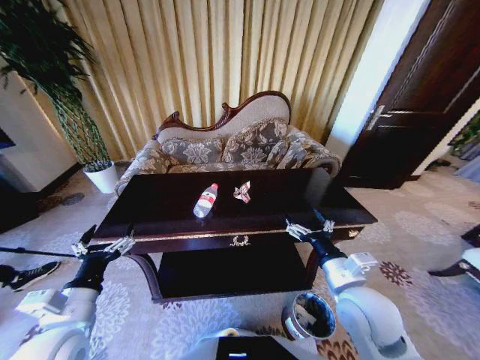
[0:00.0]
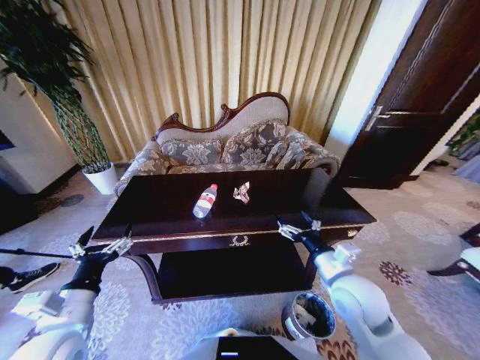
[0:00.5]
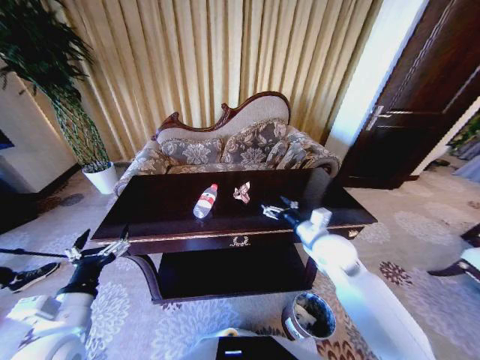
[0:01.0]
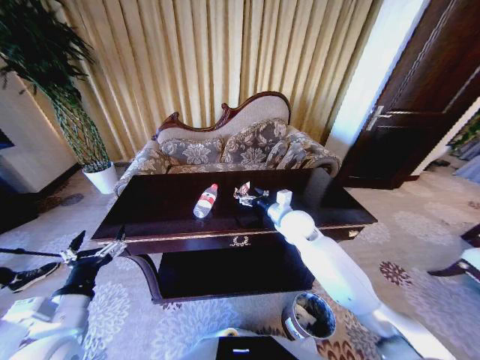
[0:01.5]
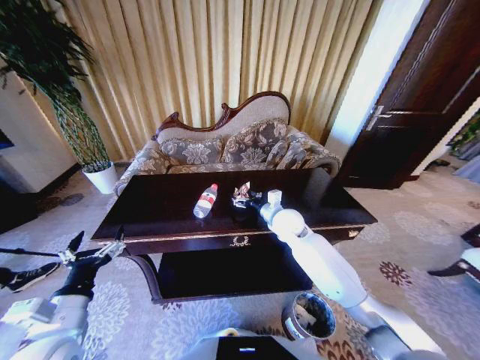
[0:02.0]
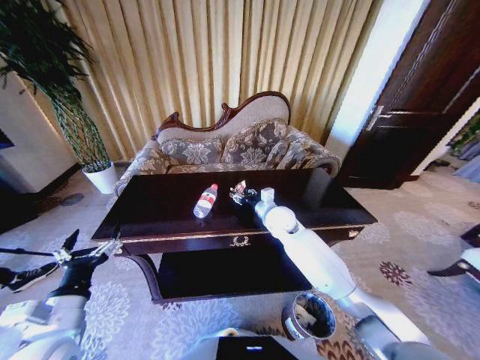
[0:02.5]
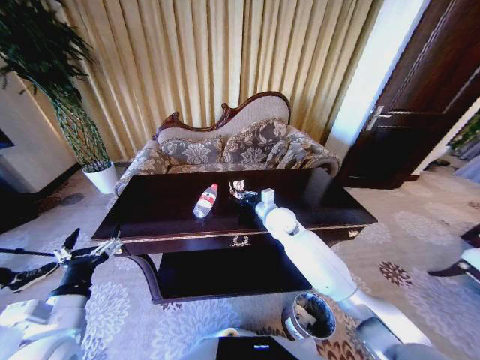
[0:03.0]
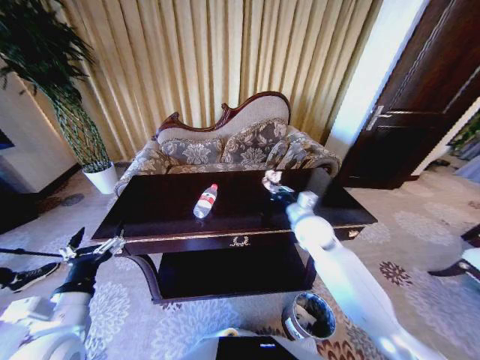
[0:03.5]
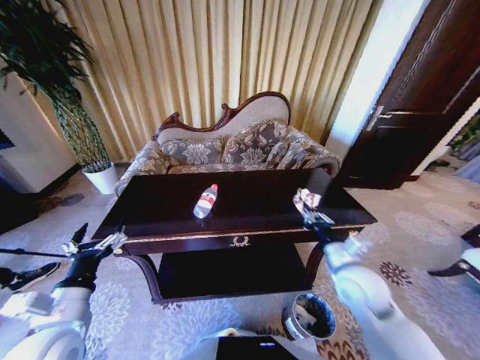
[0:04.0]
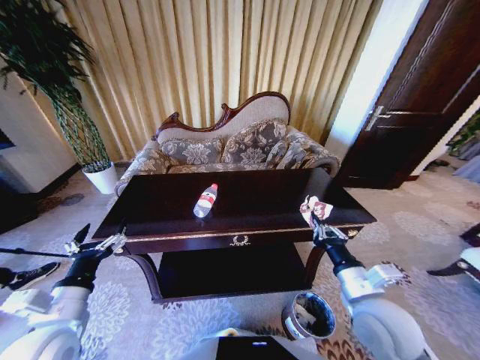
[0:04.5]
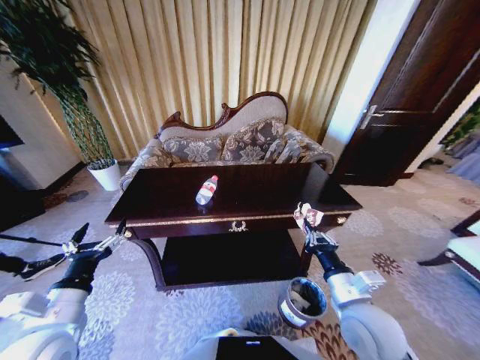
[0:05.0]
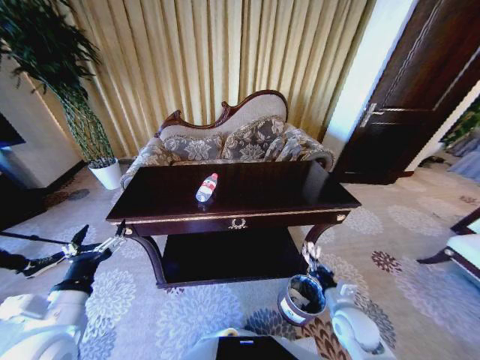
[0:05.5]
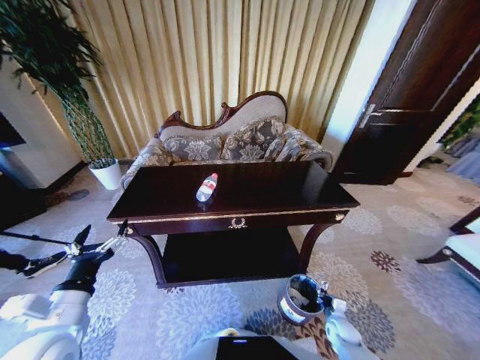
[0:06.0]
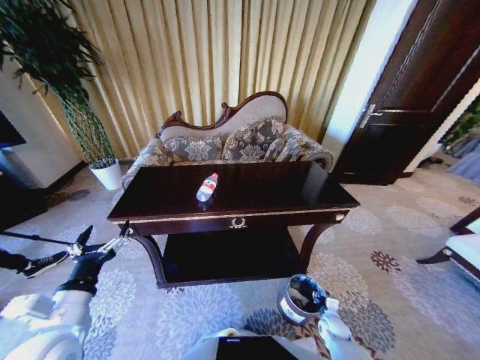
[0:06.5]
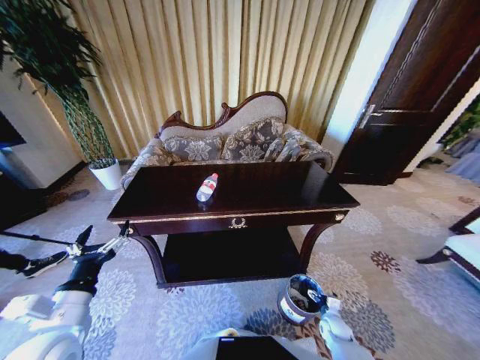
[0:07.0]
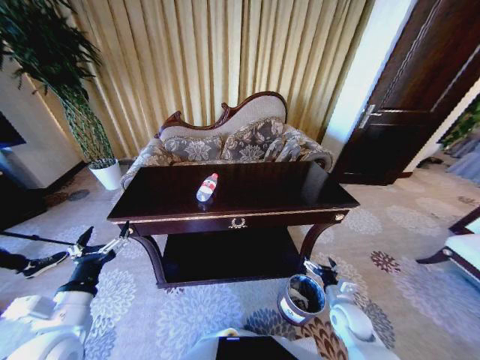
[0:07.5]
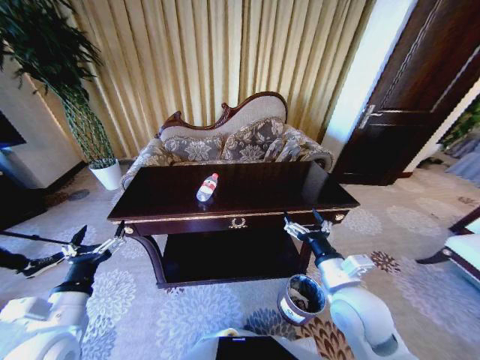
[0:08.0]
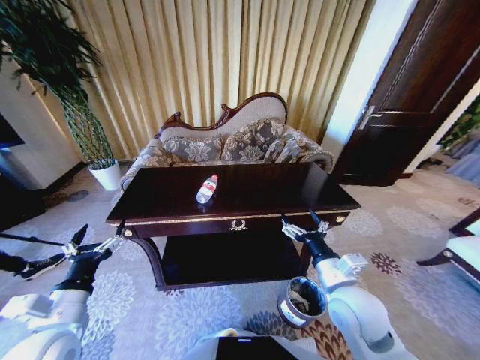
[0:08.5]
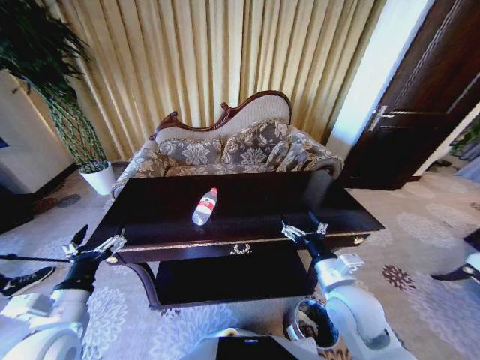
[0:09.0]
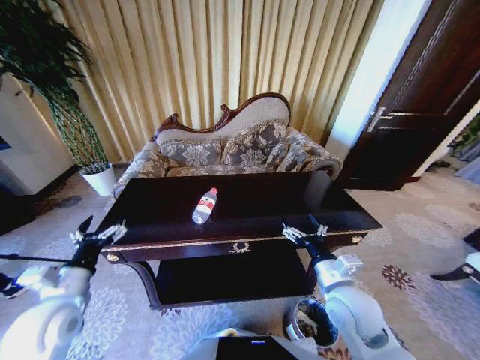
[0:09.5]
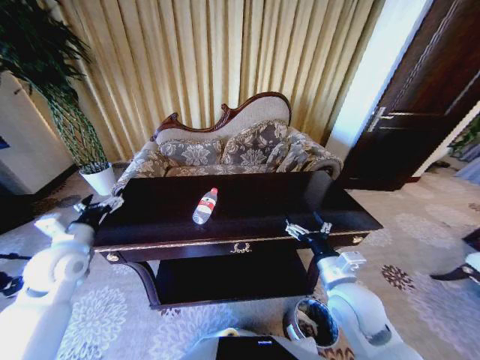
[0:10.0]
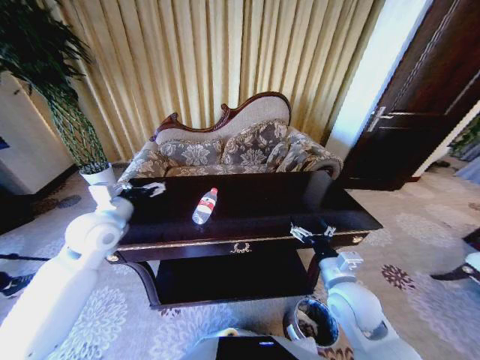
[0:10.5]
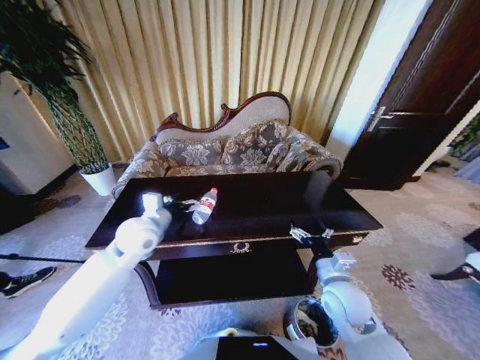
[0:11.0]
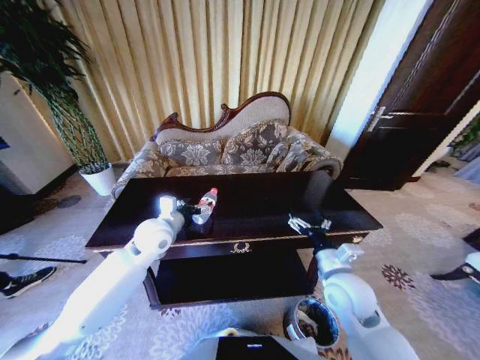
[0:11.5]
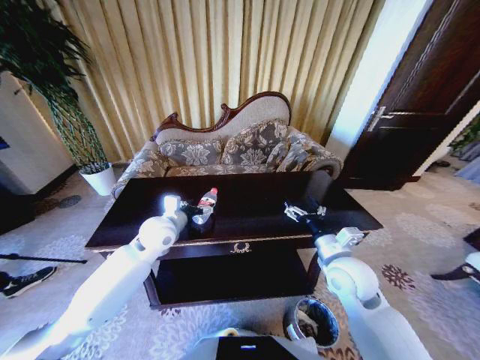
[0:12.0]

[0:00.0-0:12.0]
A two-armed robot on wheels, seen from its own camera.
Task of the whole recording: Move to the front of the table and place the trash on the table into the trash bin.
0:00.0 to 0:02.0: The right gripper heads forward, covering roughly 25 cm.
0:02.0 to 0:04.0: The right gripper is displaced backward and to the right by some 25 cm, and closes up.
0:04.0 to 0:06.0: The right gripper is displaced downward by approximately 35 cm.
0:06.0 to 0:08.0: The right gripper moves upward and to the left, about 40 cm, and opens up.
0:08.0 to 0:10.0: The left gripper heads forward and to the left, covering approximately 15 cm.
0:10.0 to 0:12.0: The right gripper heads forward, covering roughly 5 cm. The left gripper travels to the right and forward by approximately 20 cm.

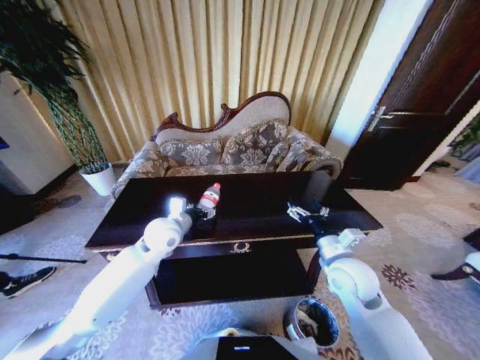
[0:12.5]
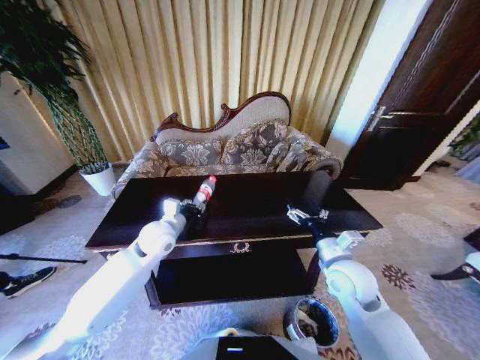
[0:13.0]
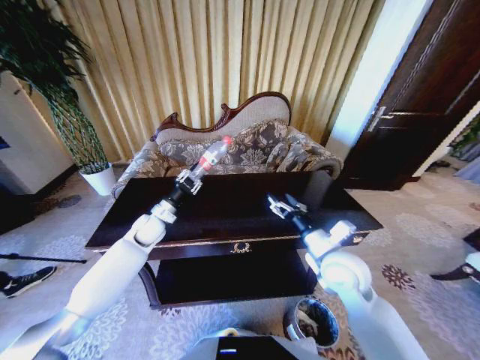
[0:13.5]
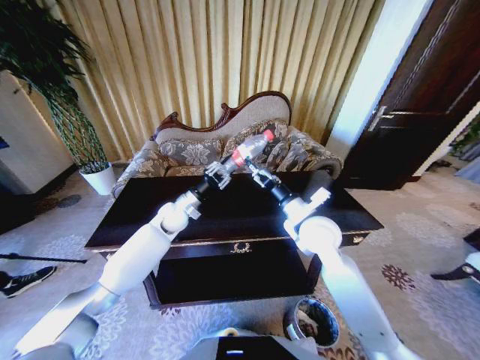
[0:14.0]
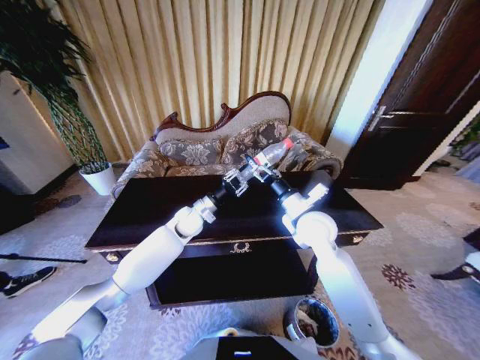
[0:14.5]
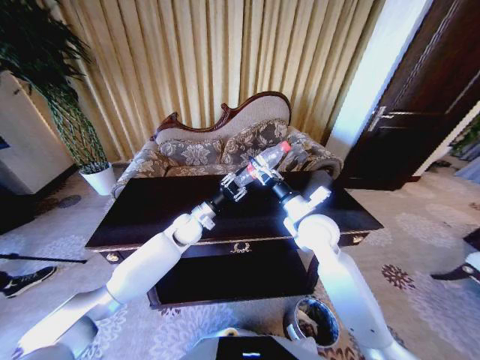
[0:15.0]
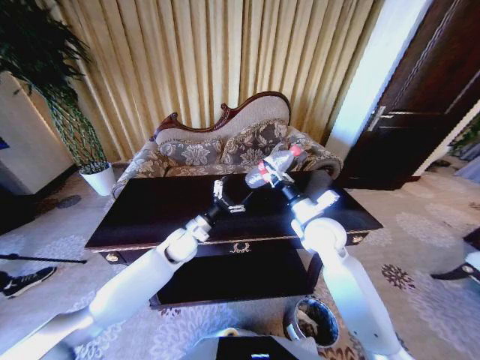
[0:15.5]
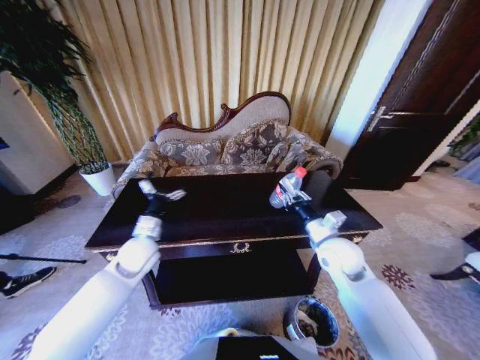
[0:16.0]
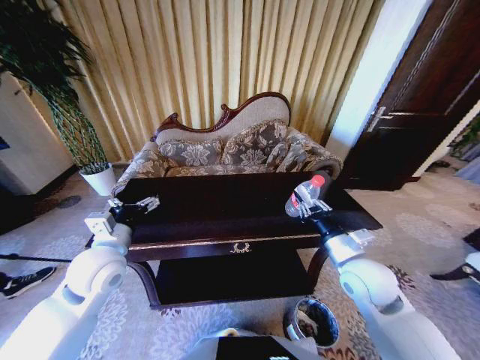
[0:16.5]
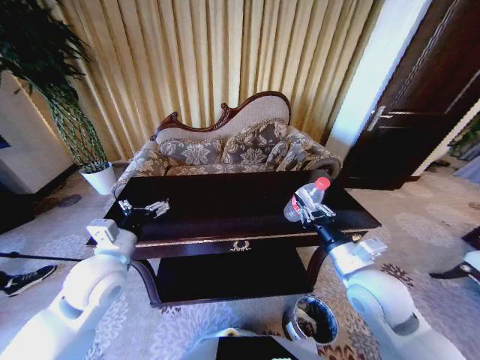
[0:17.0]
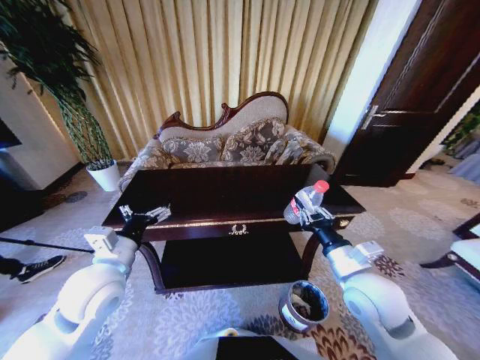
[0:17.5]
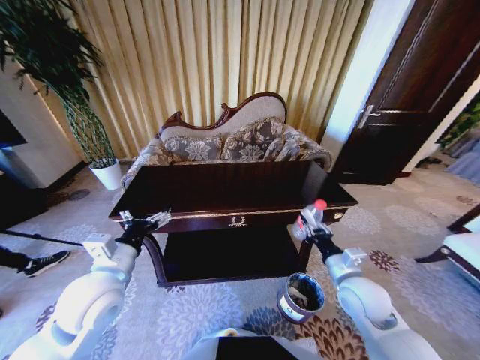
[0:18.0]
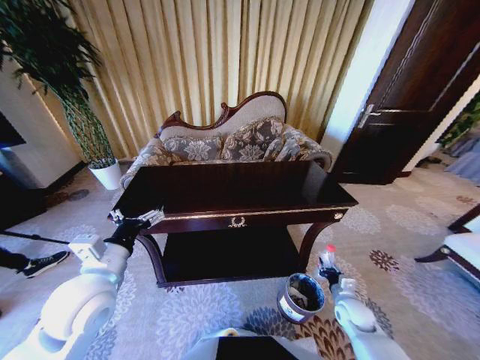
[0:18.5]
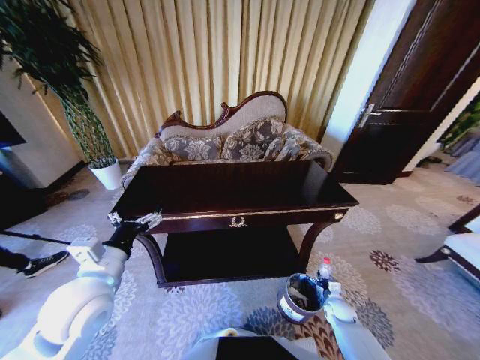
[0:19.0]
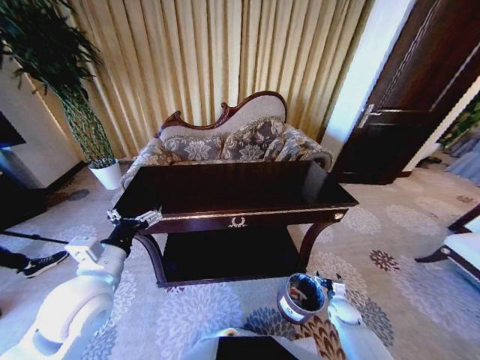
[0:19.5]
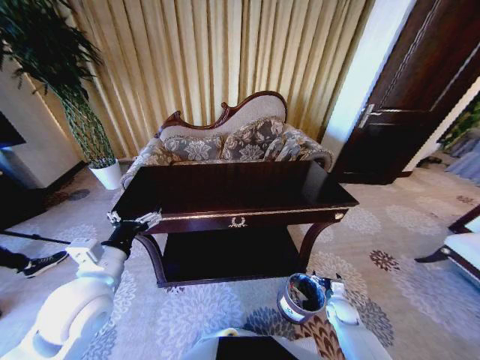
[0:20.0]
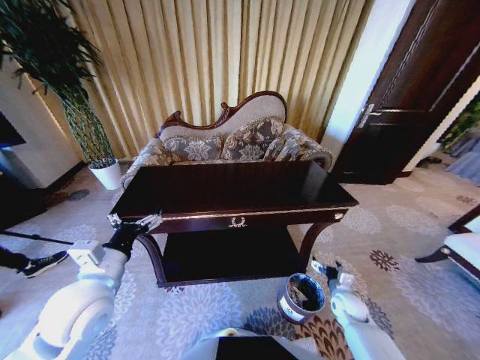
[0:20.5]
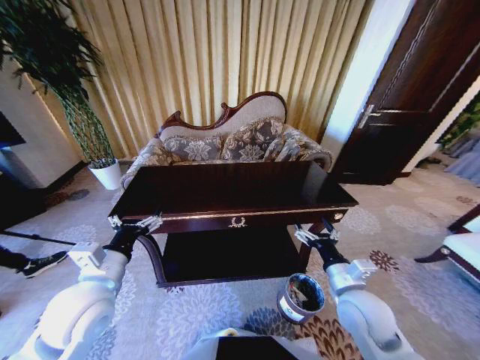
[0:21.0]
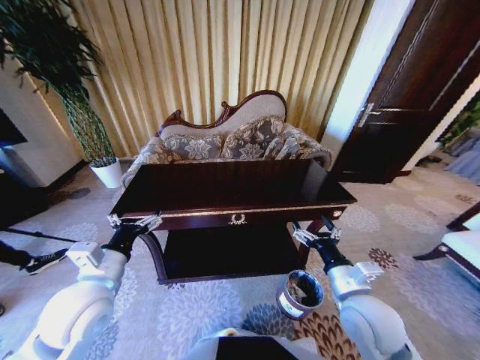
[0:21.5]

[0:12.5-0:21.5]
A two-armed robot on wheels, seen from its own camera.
Task of the whole recording: Move to the front of the table and place the trash on the table into the trash bin.
0:12.5 to 0:14.5: The right gripper moves forward, to the left and upward, roughly 15 cm, while the left gripper travels forward and downward by roughly 10 cm, and closes its fingers.
0:14.5 to 0:17.0: The left gripper goes some 25 cm backward, to the left and upward, and opens its fingers. The right gripper travels backward and to the right by roughly 15 cm, and closes its fingers.
0:17.0 to 0:19.5: The right gripper moves downward, approximately 35 cm, and opens.
0:19.5 to 0:21.5: The right gripper moves upward and to the left, roughly 35 cm.

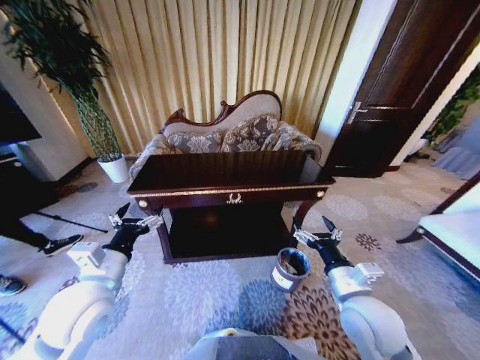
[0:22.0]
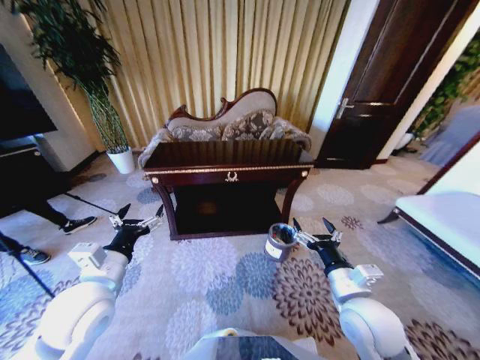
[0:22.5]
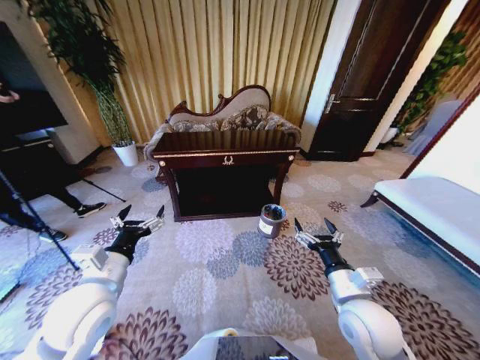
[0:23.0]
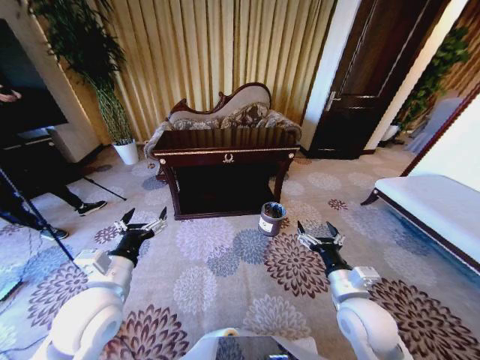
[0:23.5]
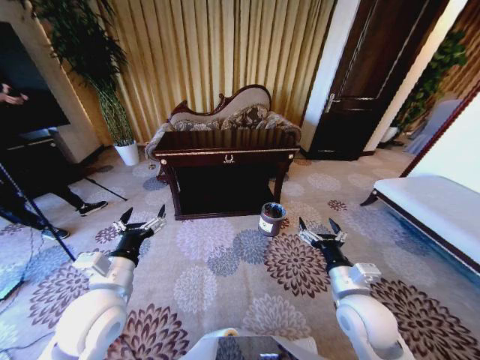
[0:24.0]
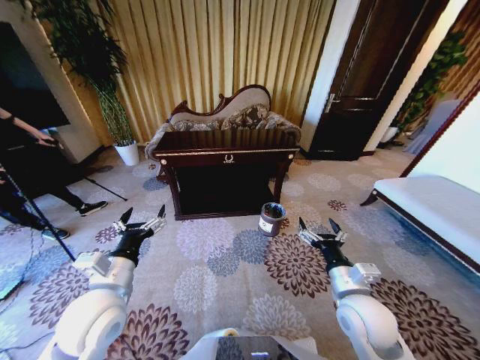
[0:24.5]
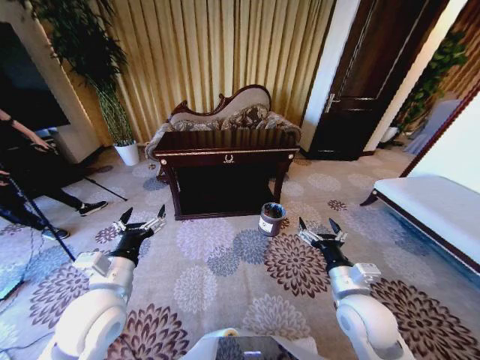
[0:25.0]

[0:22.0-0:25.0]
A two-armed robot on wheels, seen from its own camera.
Task of the whole recording: Move to the front of the table and place the trash on the table into the trash bin.
0:23.5 to 0:25.0: The two grippers keep their place.

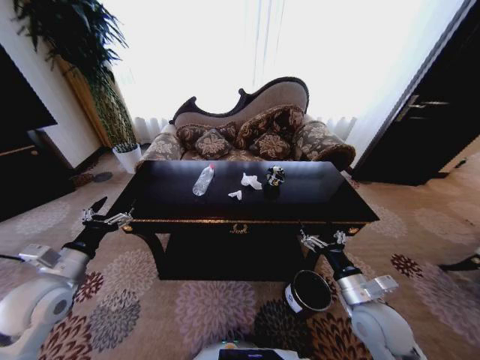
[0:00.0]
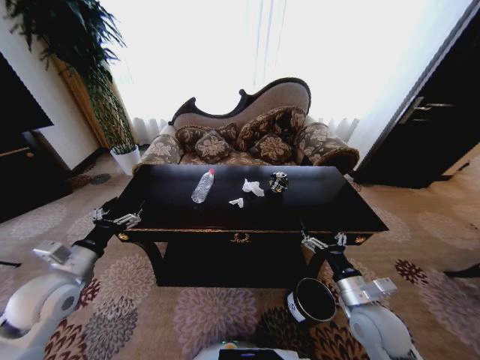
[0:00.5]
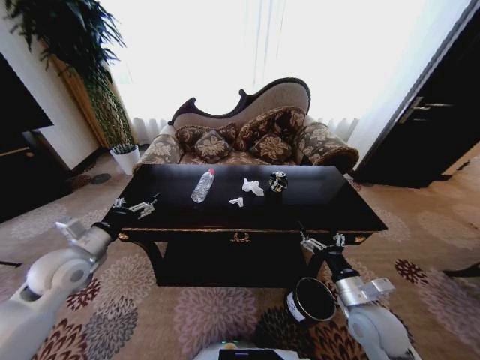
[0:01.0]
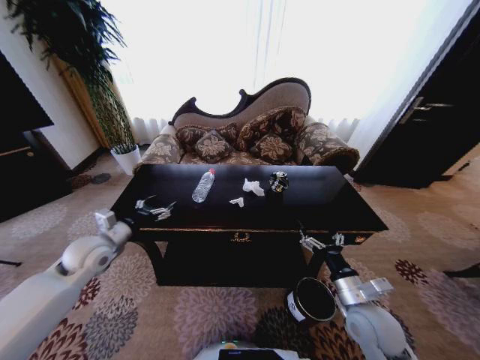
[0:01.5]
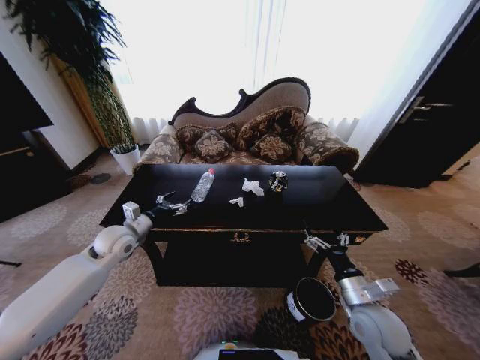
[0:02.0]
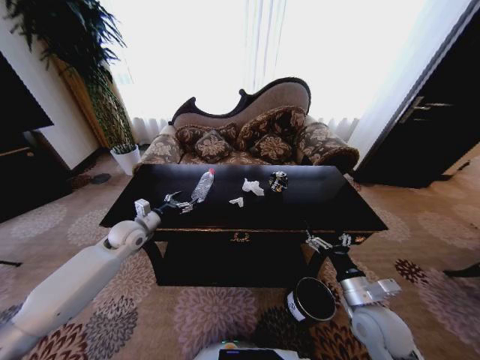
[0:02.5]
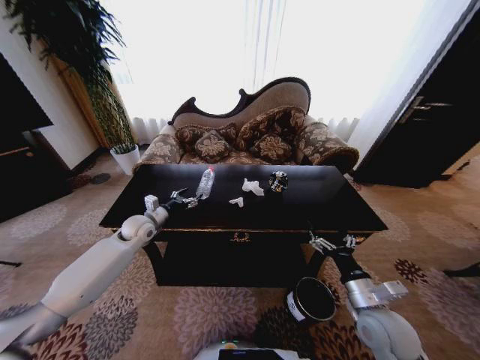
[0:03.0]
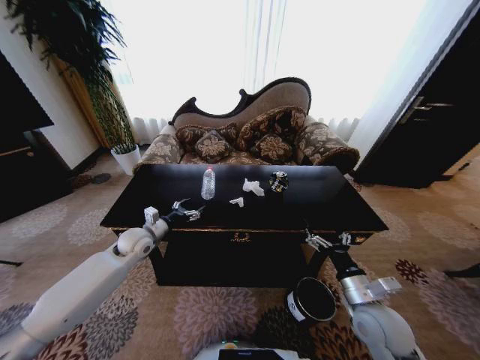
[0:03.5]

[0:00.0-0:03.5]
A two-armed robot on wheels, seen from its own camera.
Task of the whole recording: Move to the front of the table and place the trash on the table into the trash bin.
0:00.0 to 0:02.0: The left gripper is displaced forward by about 15 cm.
0:02.0 to 0:03.5: The left gripper shifts by roughly 5 cm.
